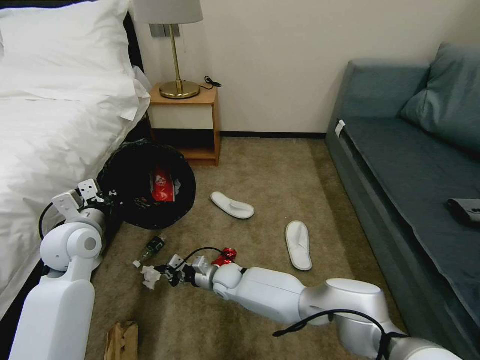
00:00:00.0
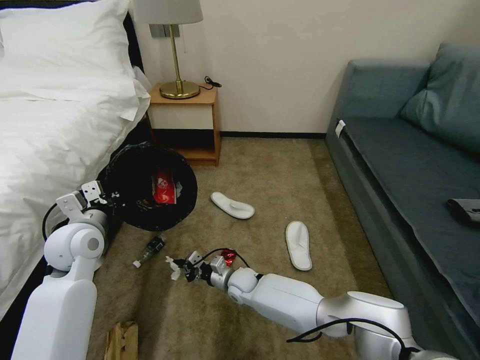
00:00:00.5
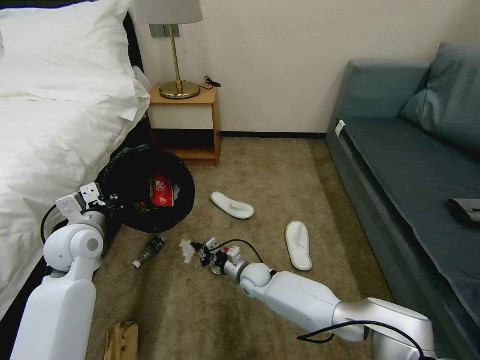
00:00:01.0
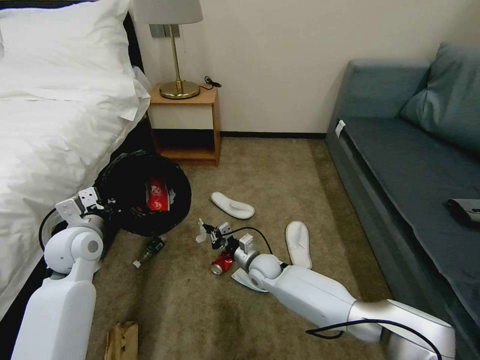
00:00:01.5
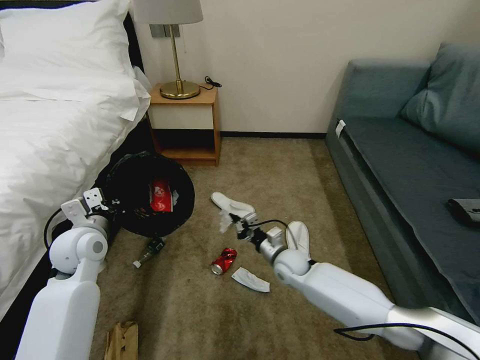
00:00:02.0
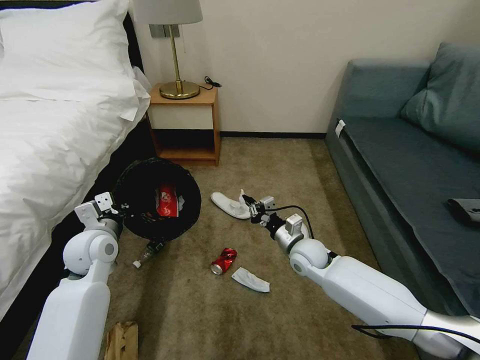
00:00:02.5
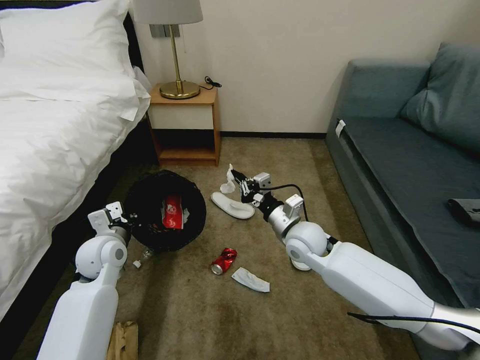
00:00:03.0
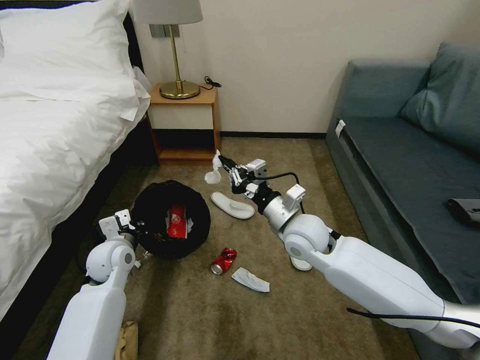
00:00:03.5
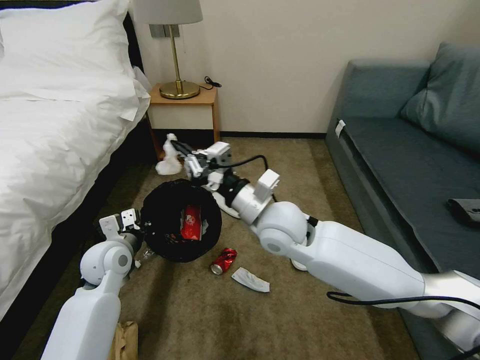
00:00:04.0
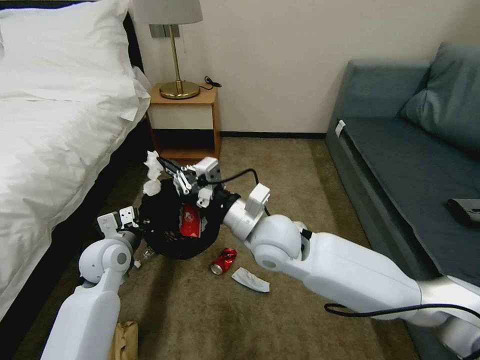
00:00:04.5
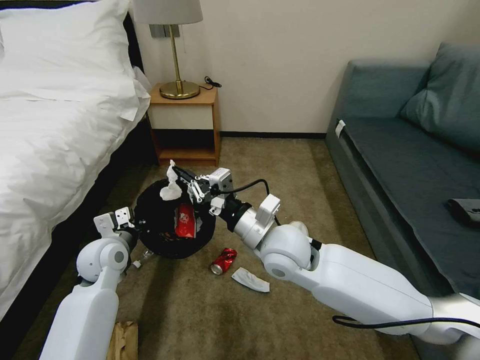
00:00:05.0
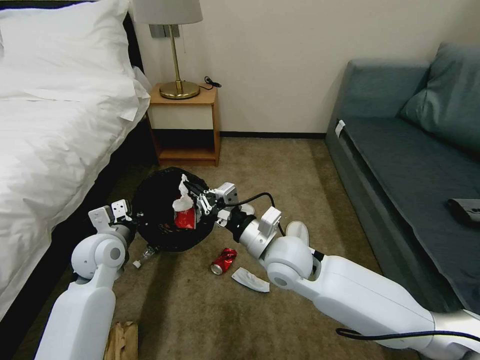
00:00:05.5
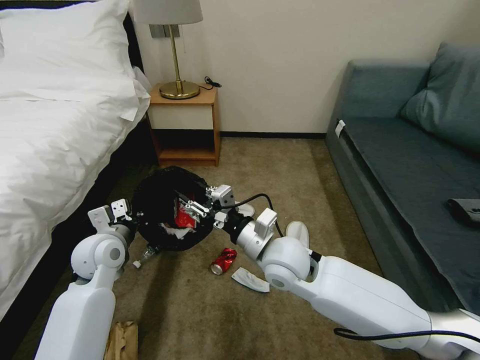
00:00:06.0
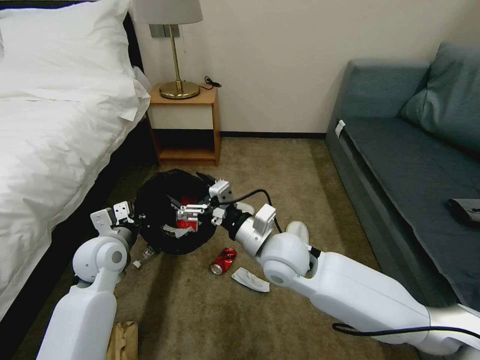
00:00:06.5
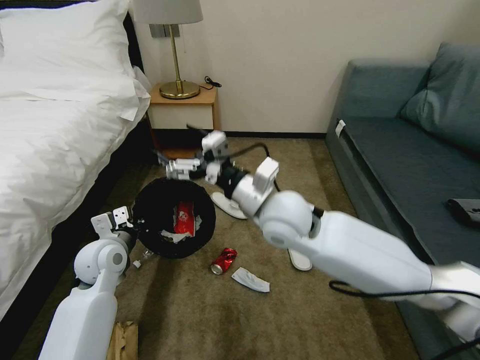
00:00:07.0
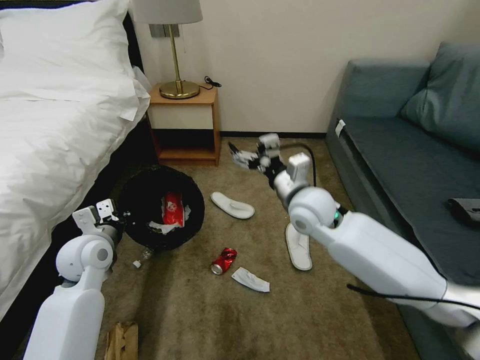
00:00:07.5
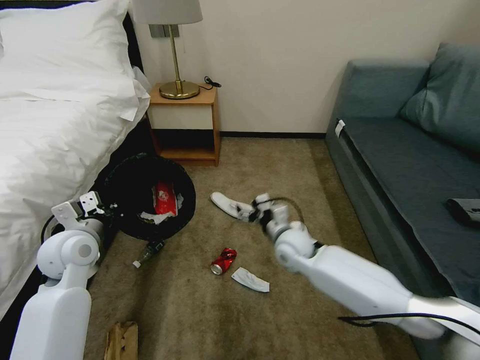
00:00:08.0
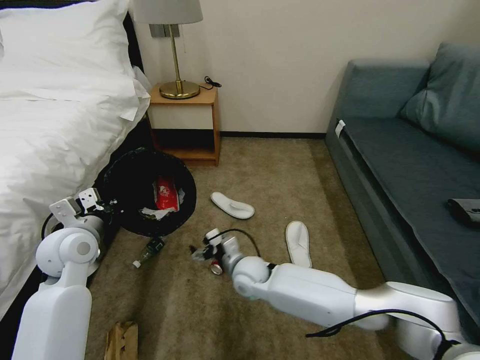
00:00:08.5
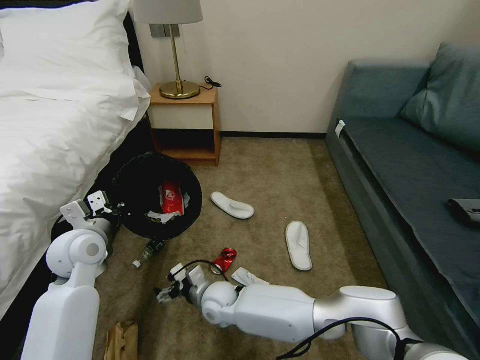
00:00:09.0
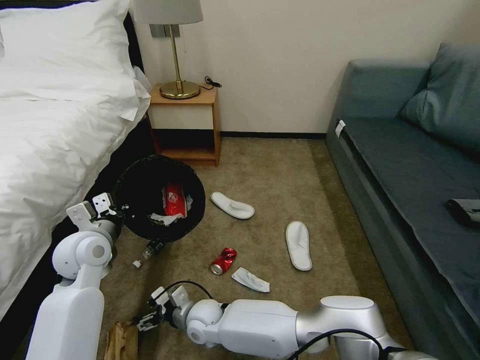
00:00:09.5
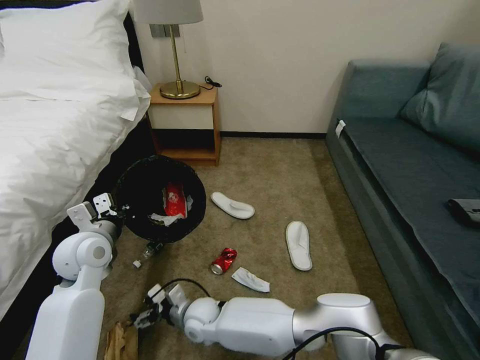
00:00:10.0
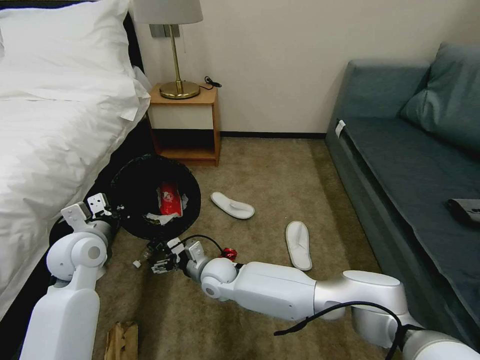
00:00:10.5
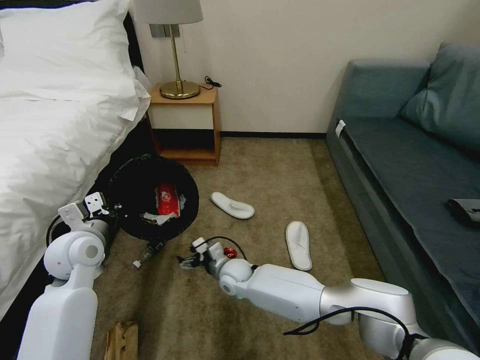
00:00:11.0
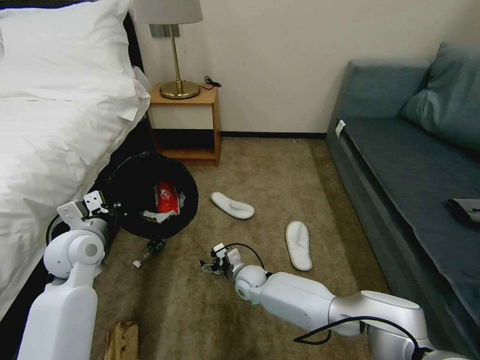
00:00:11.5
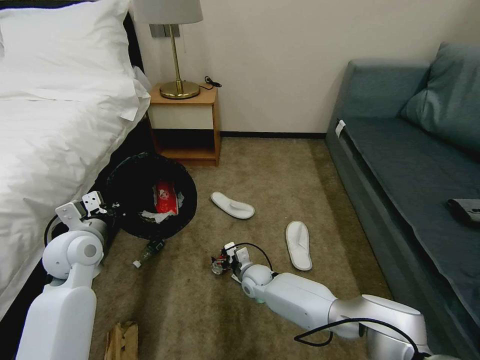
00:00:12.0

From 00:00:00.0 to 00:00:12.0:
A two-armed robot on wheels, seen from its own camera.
Task of the whole recording: Pick up the trash bin, then pick up the garbage on the floor and place it into the trash bin.
From 00:00:00.0 to 00:00:02.0: The right gripper heads to the right, covering some 15 cm.
From 00:00:02.0 to 00:00:04.0: The left gripper moves about 5 cm; the right gripper shifts approximately 25 cm upward.
From 00:00:04.0 to 00:00:06.0: The right gripper is displaced downward by approximately 5 cm, and opens.
From 00:00:06.0 to 00:00:08.0: The left gripper ends up roughly 5 cm from where it was, while the right gripper moves downward and forward, some 15 cm, and opens up.
From 00:00:08.0 to 00:00:10.0: The right gripper is displaced to the left, backward and downward by some 30 cm.
From 00:00:10.0 to 00:00:12.0: The right gripper goes about 20 cm to the right and forward.

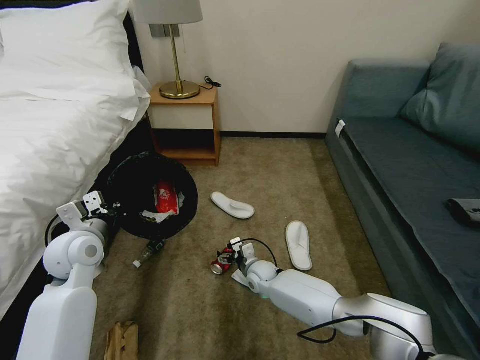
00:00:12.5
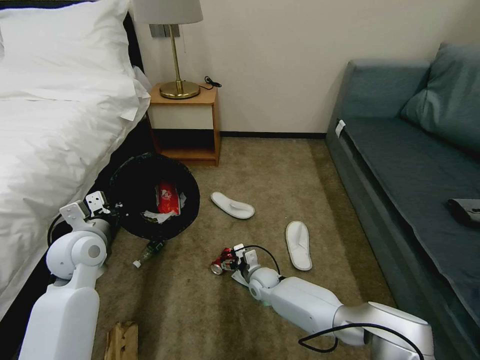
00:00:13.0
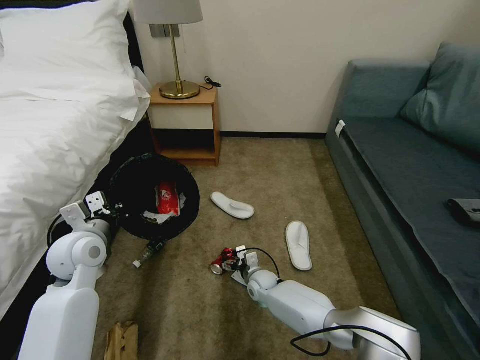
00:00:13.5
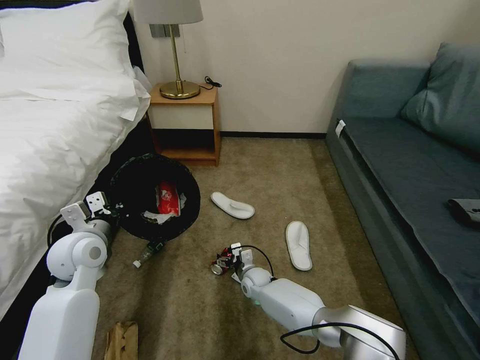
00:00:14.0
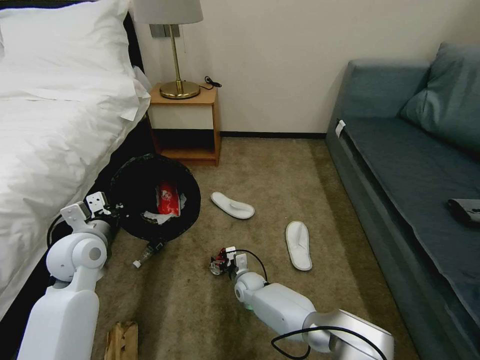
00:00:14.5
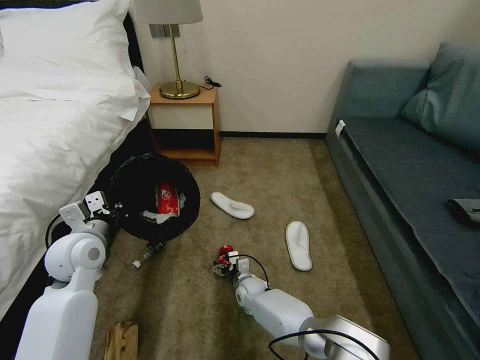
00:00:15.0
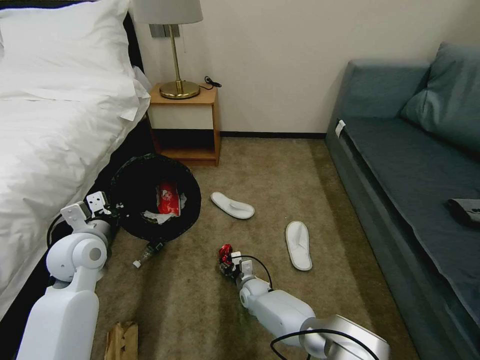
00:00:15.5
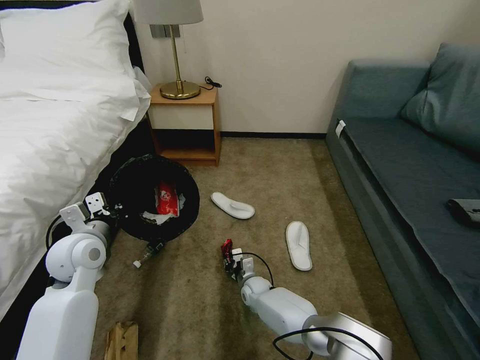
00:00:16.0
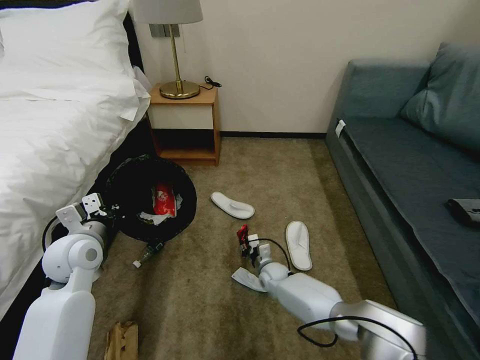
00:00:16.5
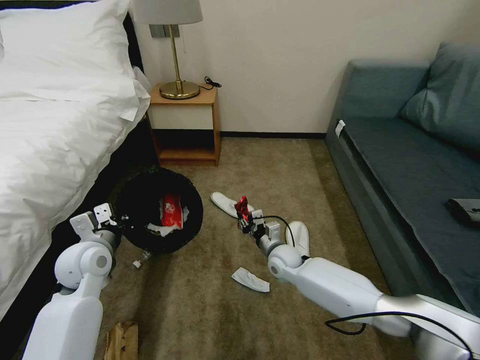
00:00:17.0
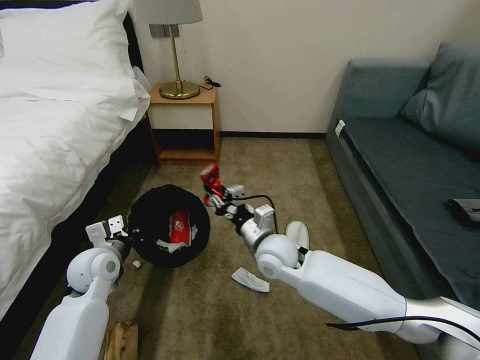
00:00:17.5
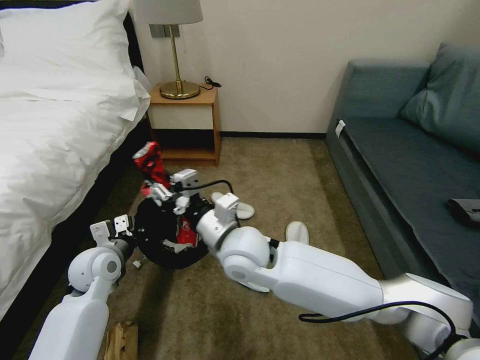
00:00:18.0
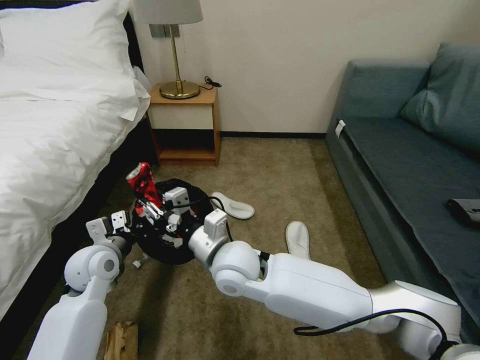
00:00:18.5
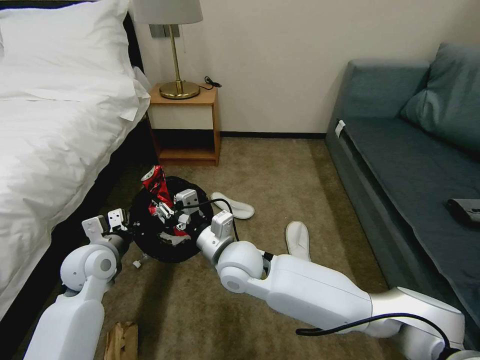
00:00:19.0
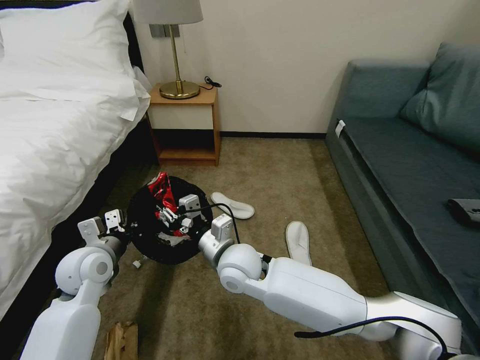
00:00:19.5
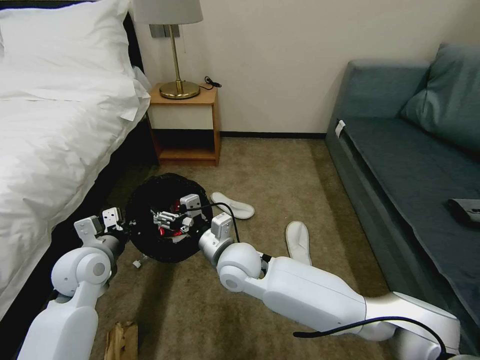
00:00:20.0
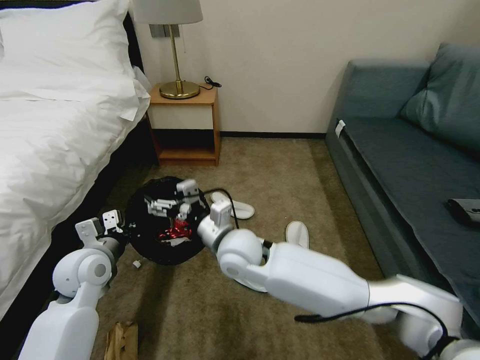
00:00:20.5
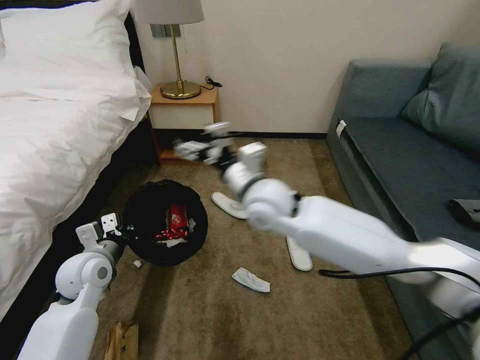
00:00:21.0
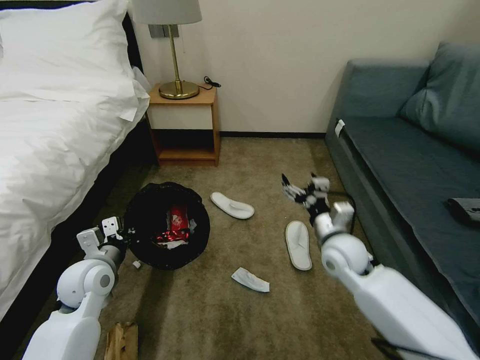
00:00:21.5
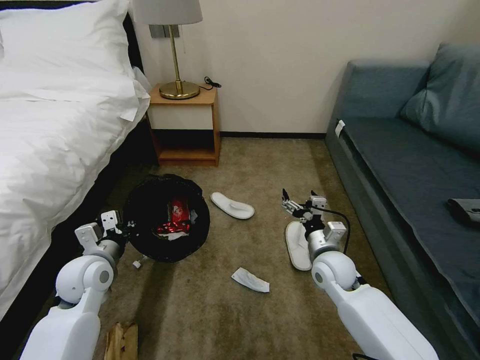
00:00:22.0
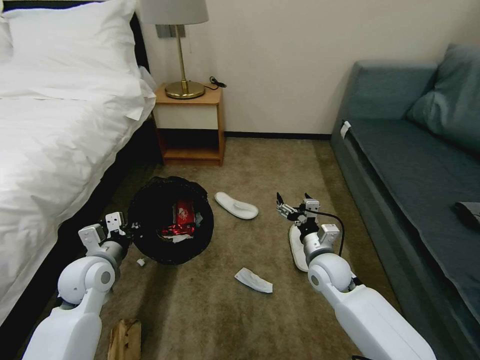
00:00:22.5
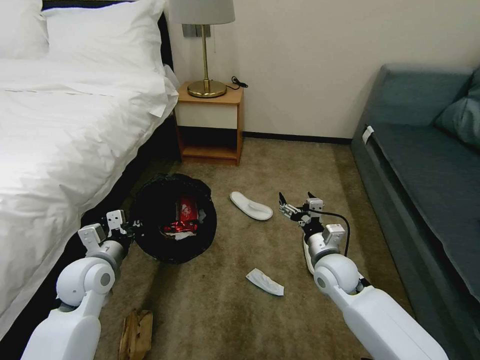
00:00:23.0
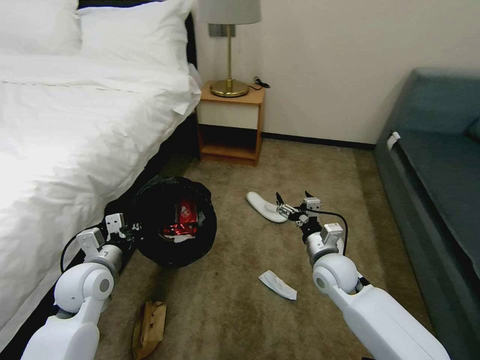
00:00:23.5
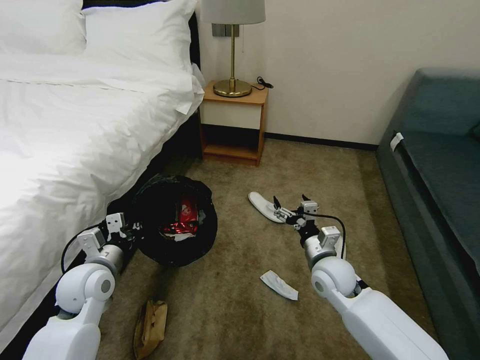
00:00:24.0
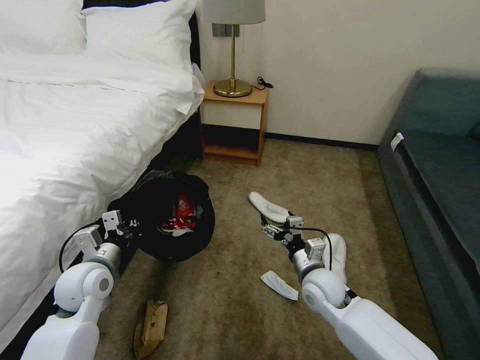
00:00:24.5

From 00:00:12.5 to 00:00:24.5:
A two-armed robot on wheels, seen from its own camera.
Task of the whole recording: Pick up the trash bin, then pick up the garbage on the floor and place it into the trash bin.
From 00:00:12.5 to 00:00:14.5: The right gripper changes place by roughly 5 cm.
From 00:00:14.5 to 00:00:16.5: The right gripper is displaced to the right by some 10 cm, and closes its fingers.
From 00:00:16.5 to 00:00:18.5: The right gripper goes some 35 cm upward and to the left.
From 00:00:18.5 to 00:00:20.5: The right gripper opens up.
From 00:00:20.5 to 00:00:22.5: The right gripper is displaced to the right and downward by some 25 cm.

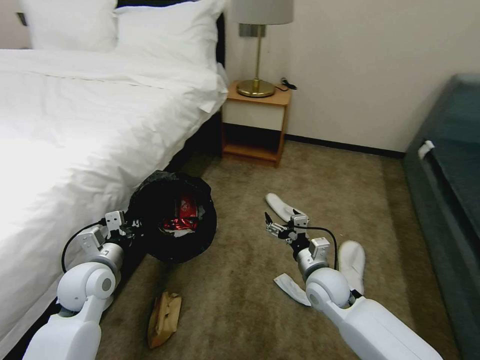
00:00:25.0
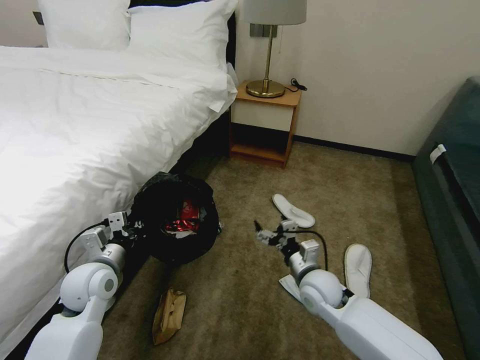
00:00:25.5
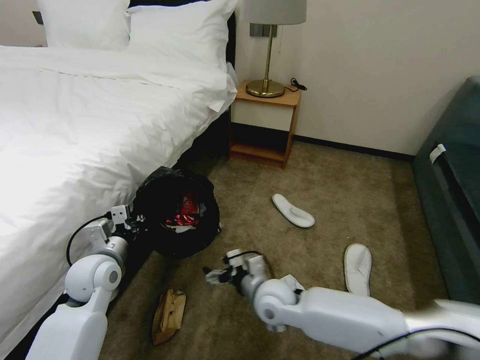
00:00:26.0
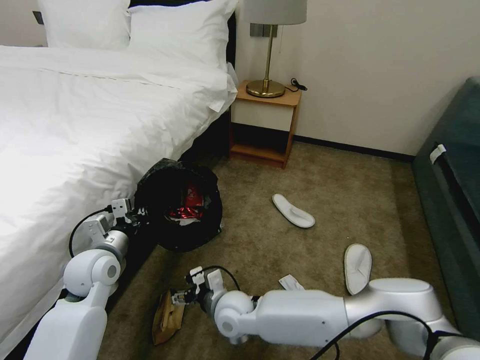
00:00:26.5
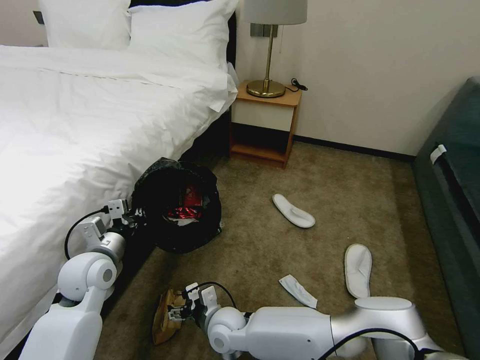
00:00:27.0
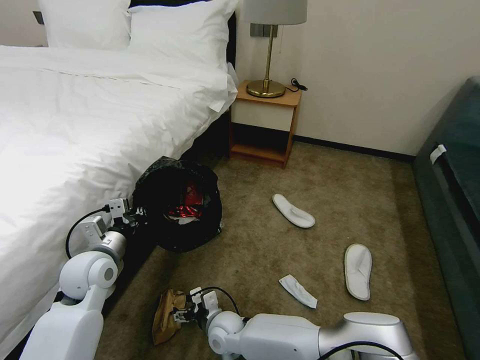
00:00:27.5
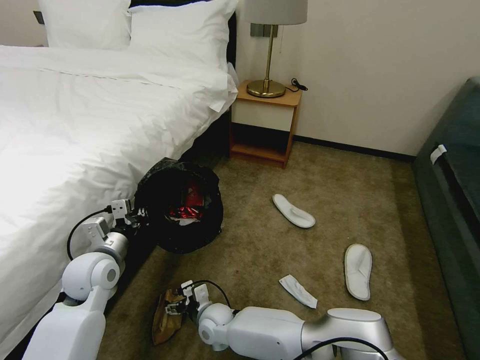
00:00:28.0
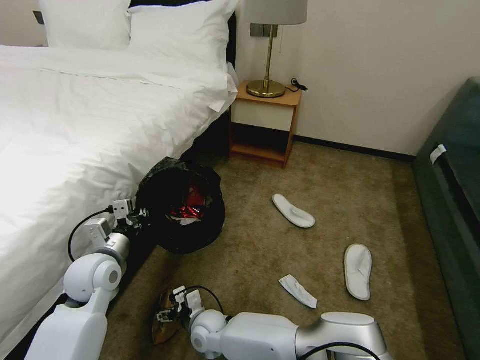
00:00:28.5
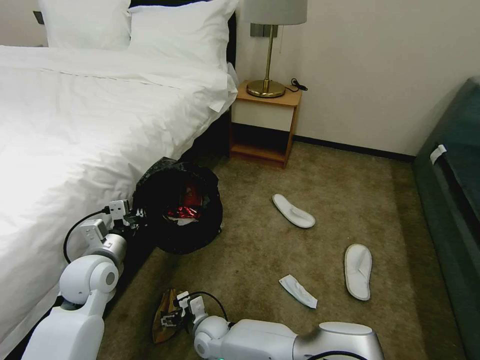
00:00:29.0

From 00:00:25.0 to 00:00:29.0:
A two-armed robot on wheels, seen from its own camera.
Task of the whole recording: Pick up the trash bin, then pick up the garbage on the floor and place it into the trash bin.
From 00:00:25.0 to 00:00:27.0: The right gripper moves to the left, some 25 cm.
From 00:00:27.0 to 00:00:29.0: The right gripper travels downward by some 10 cm.
